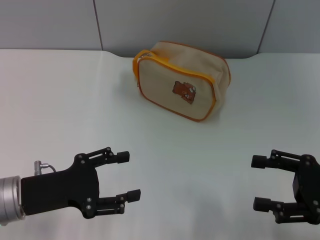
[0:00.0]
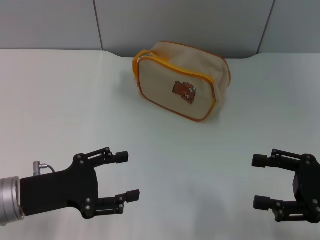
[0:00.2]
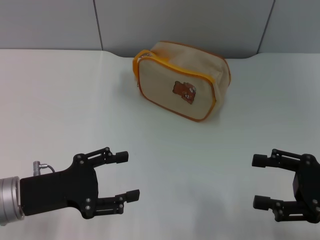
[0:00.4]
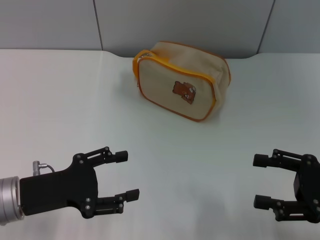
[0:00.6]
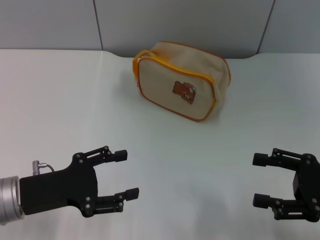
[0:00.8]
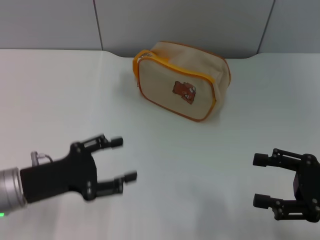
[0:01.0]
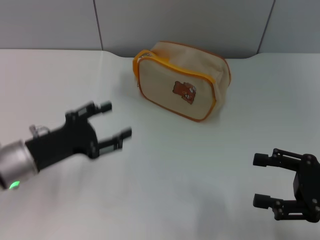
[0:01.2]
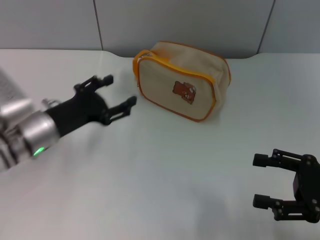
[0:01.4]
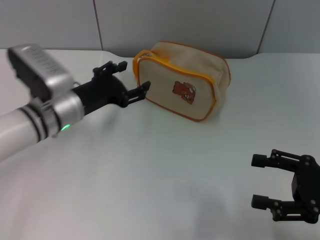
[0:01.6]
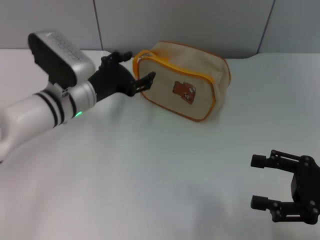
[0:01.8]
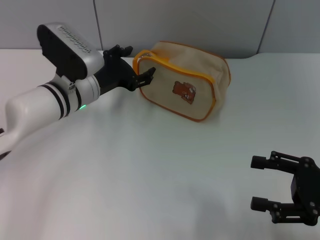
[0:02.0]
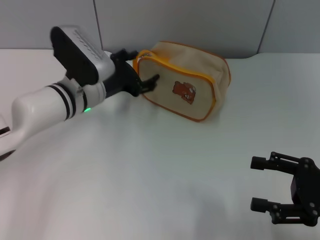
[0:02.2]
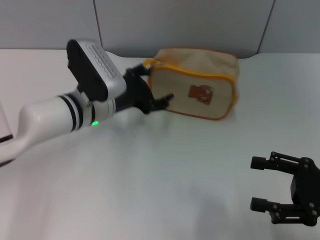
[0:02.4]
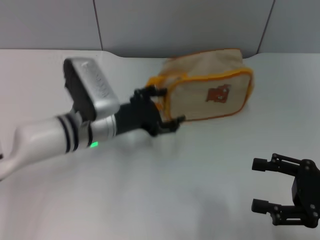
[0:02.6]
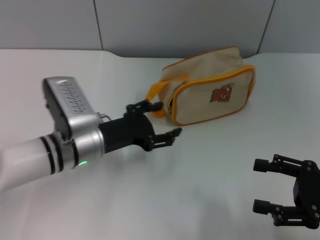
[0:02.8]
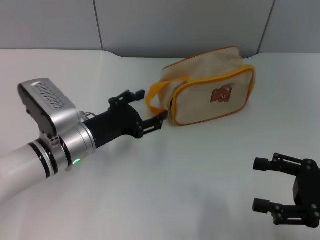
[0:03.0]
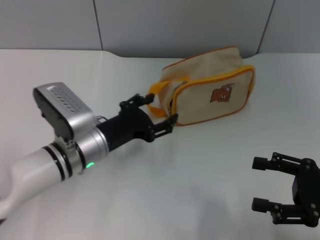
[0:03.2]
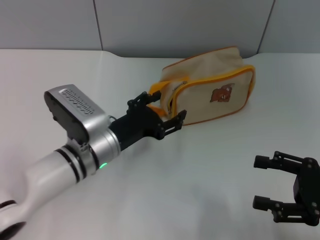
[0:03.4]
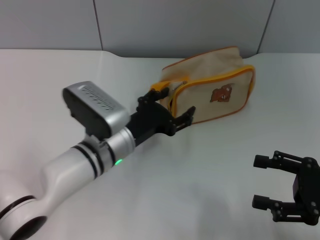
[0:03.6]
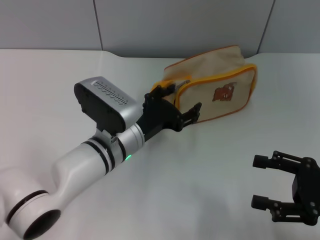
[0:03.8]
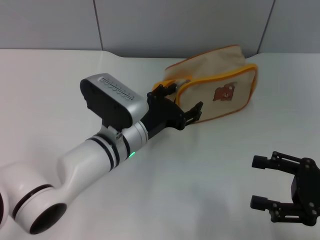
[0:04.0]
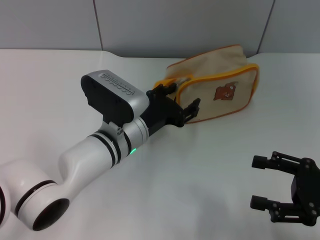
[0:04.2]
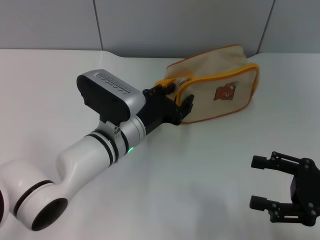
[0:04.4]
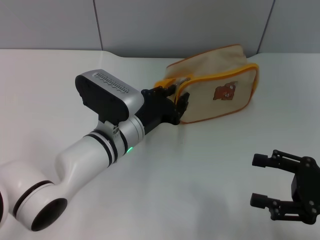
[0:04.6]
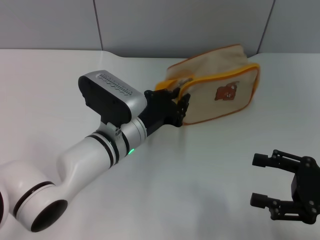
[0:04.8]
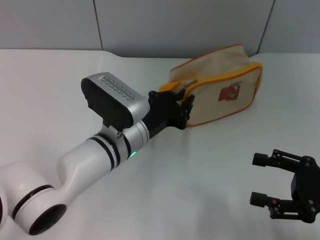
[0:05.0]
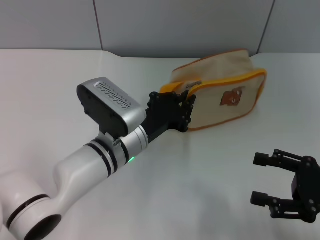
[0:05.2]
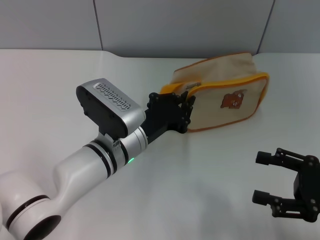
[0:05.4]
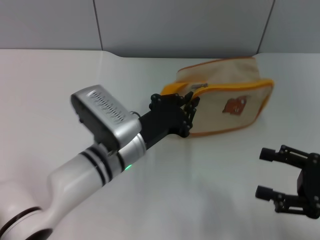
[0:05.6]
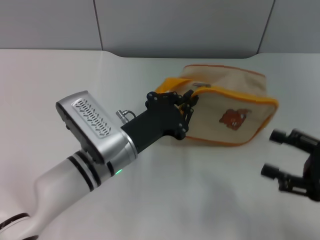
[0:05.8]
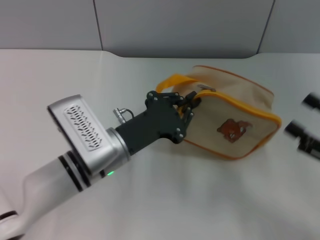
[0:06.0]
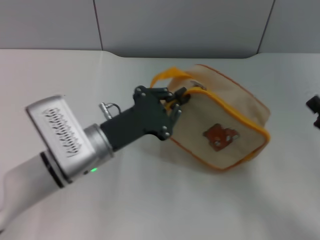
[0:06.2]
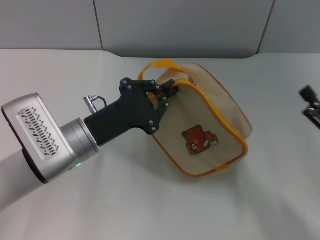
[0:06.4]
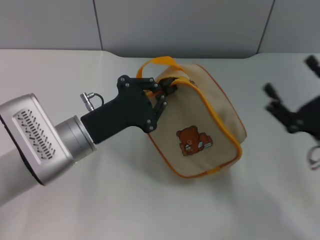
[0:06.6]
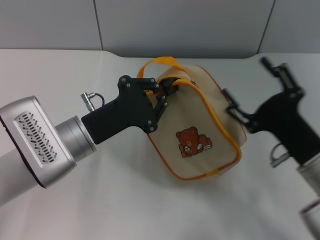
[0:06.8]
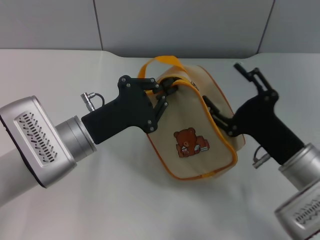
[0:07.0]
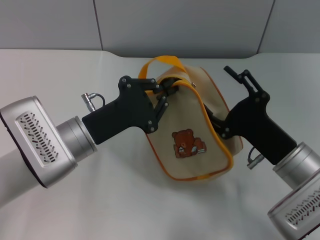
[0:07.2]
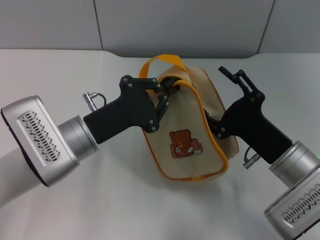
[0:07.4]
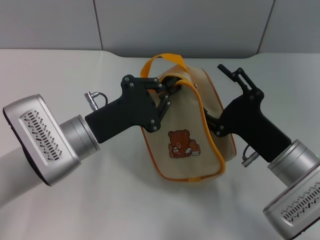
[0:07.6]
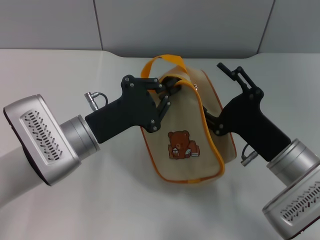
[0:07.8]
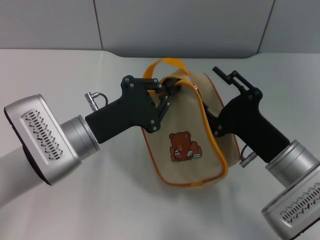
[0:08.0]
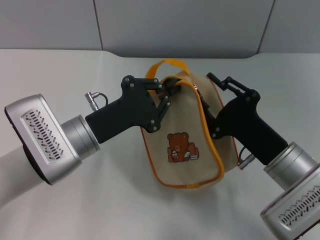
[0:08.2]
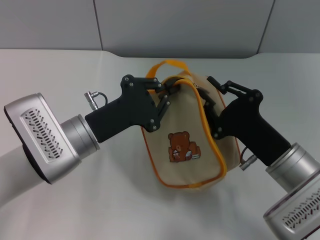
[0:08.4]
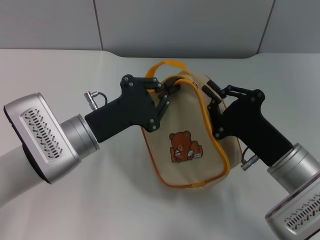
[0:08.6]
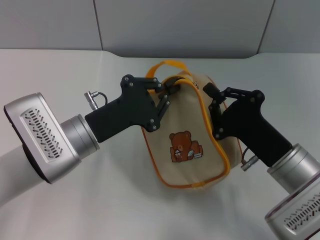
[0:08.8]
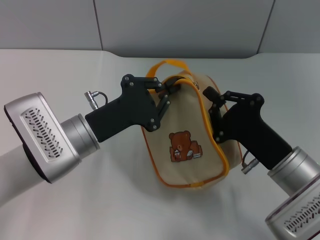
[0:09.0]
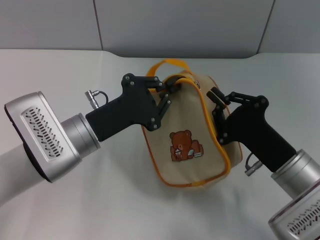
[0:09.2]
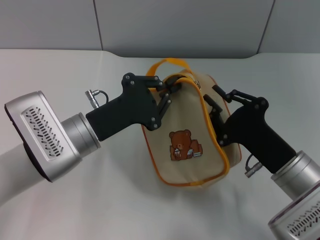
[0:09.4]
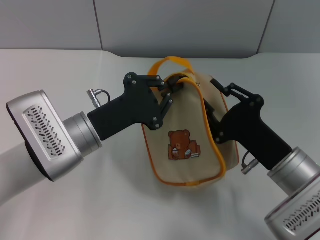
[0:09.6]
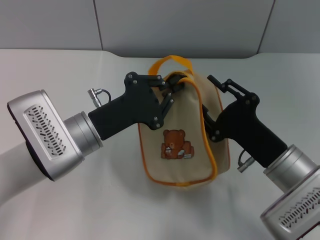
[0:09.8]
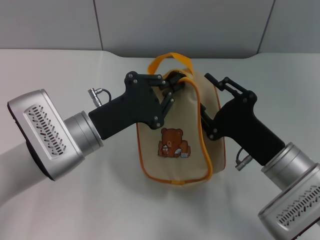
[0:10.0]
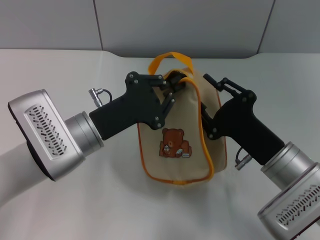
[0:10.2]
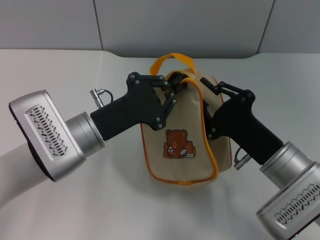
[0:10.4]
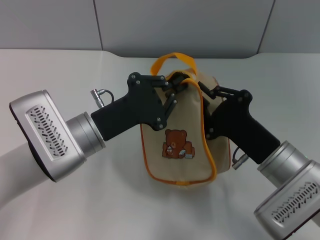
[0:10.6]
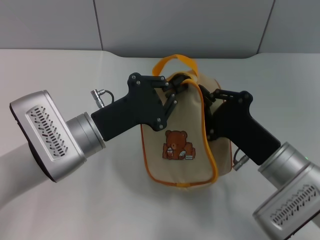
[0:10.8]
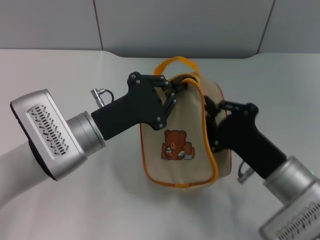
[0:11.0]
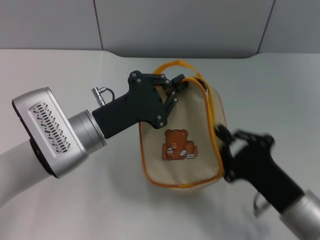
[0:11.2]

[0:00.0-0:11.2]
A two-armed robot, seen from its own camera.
Step, 0:00.0 to 0:06.2: Pick up the bag with left gripper.
0:00.0 to 0:01.6: The left gripper moves forward and to the right, roughly 15 cm.
0:01.6 to 0:03.2: The left gripper goes about 5 cm backward.
0:03.2 to 0:04.8: The left gripper heads to the right, covering about 5 cm, and closes up.
0:04.8 to 0:06.4: The left gripper goes some 5 cm to the left.
0:06.4 to 0:08.0: The right gripper is displaced to the left by approximately 10 cm.
0:08.0 to 0:09.6: The right gripper closes up.
0:09.6 to 0:11.2: The right gripper shifts some 5 cm backward.

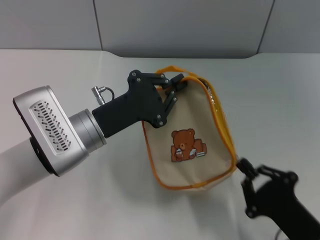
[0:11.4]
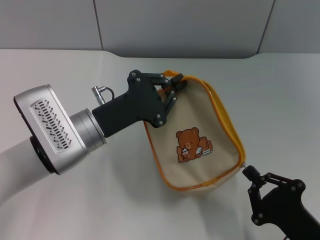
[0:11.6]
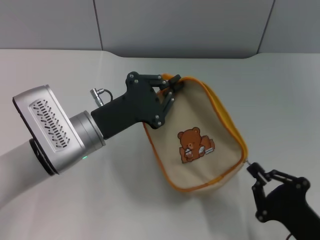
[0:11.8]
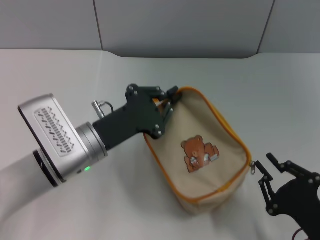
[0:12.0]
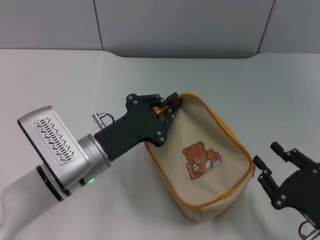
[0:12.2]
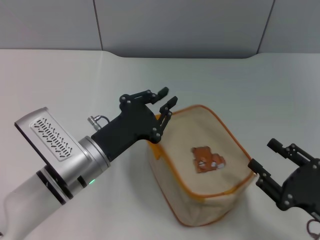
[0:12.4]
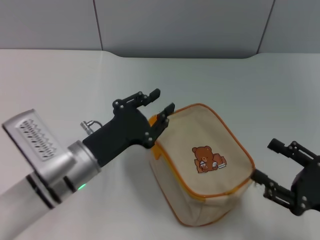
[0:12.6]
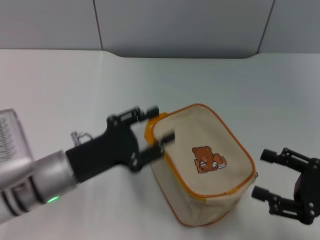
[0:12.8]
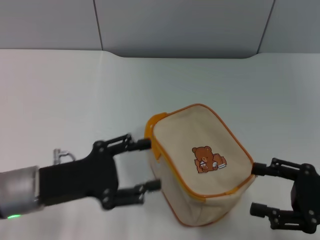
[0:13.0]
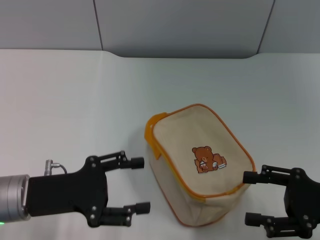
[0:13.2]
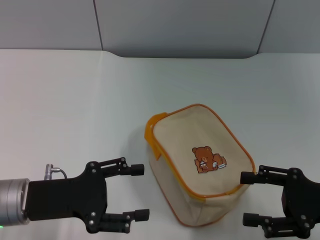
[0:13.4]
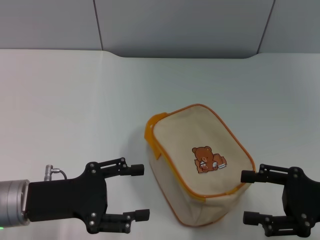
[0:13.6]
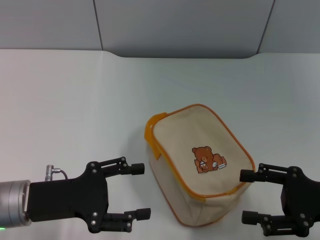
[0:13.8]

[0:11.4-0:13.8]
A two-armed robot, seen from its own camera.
0:11.4 to 0:12.6: The right gripper moves to the right, roughly 10 cm, and opens its fingers. The left gripper changes place by about 5 cm.
0:12.6 to 0:13.8: The right gripper moves some 5 cm; the left gripper heads to the left, covering some 10 cm, and opens.

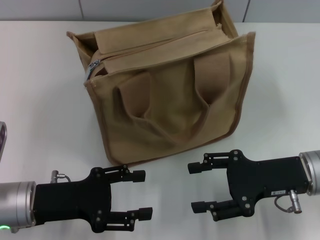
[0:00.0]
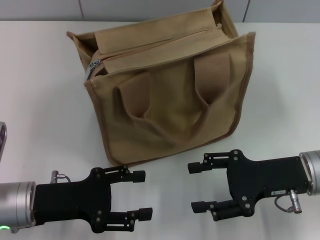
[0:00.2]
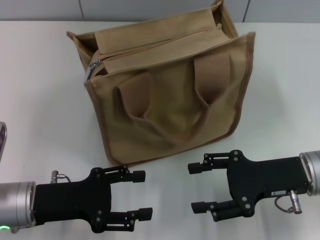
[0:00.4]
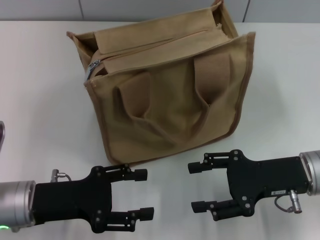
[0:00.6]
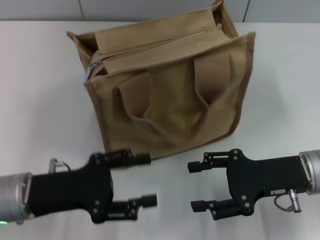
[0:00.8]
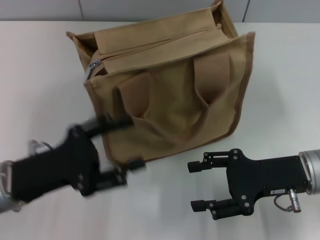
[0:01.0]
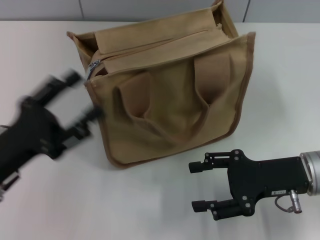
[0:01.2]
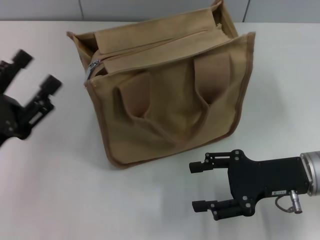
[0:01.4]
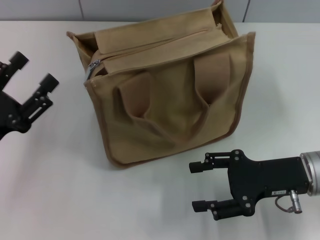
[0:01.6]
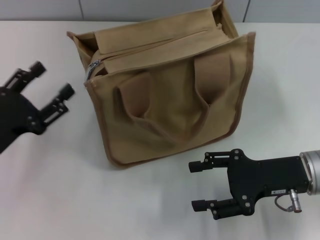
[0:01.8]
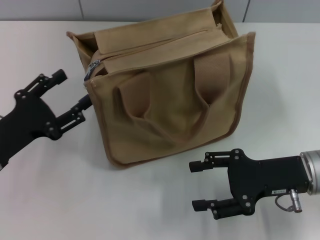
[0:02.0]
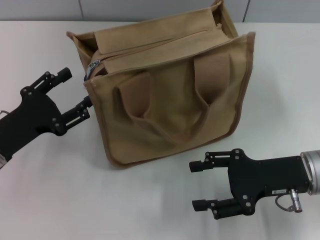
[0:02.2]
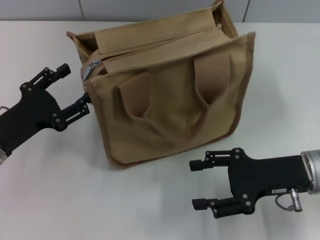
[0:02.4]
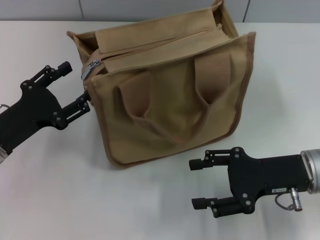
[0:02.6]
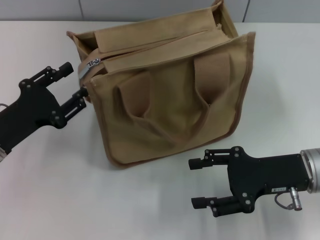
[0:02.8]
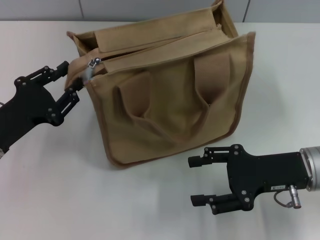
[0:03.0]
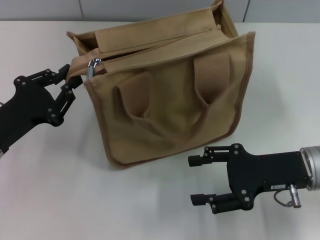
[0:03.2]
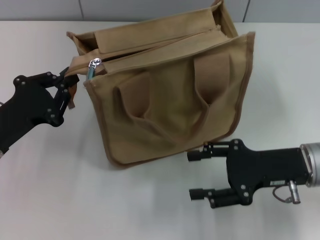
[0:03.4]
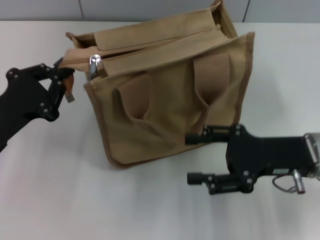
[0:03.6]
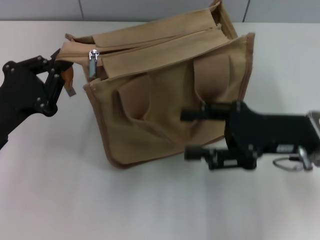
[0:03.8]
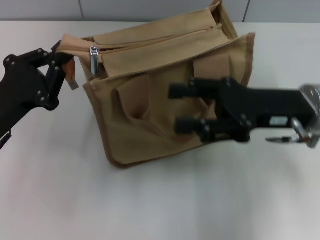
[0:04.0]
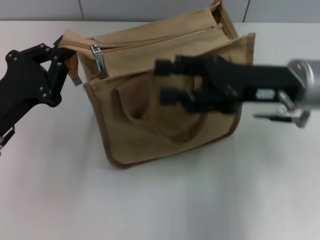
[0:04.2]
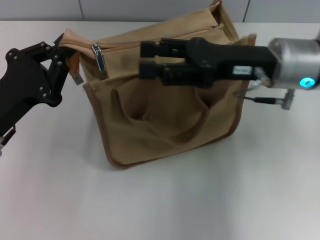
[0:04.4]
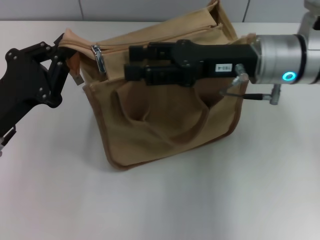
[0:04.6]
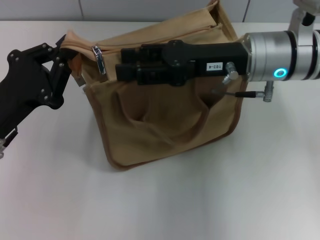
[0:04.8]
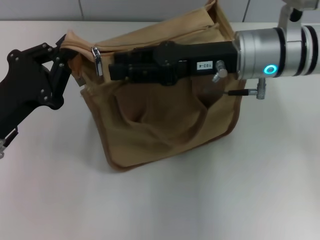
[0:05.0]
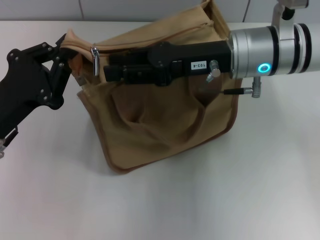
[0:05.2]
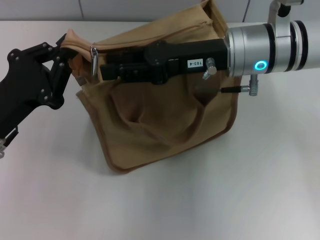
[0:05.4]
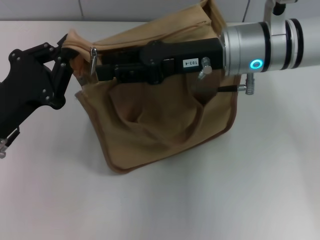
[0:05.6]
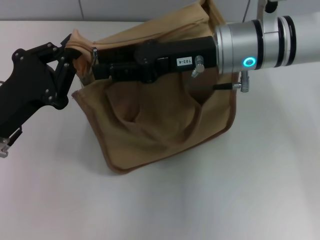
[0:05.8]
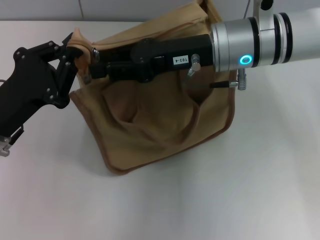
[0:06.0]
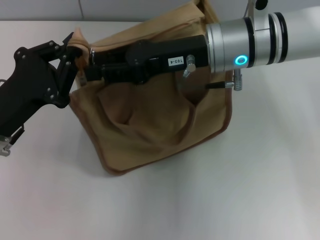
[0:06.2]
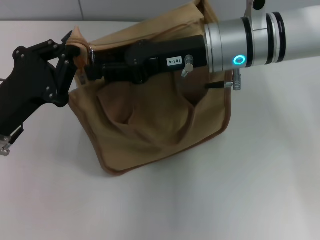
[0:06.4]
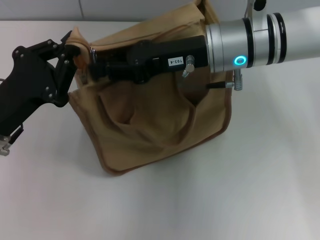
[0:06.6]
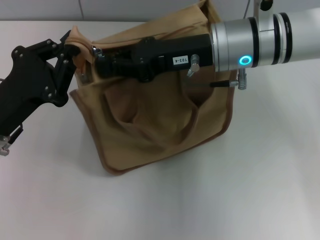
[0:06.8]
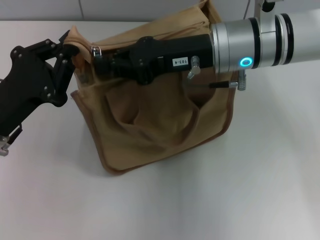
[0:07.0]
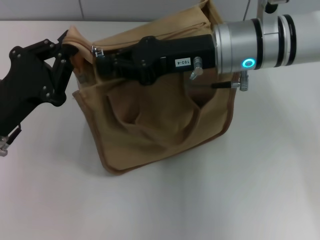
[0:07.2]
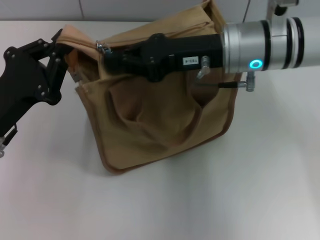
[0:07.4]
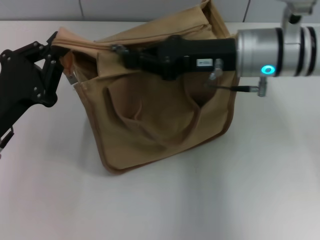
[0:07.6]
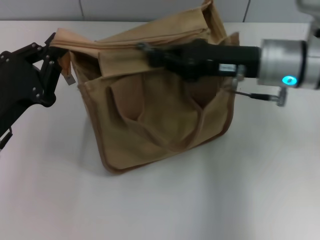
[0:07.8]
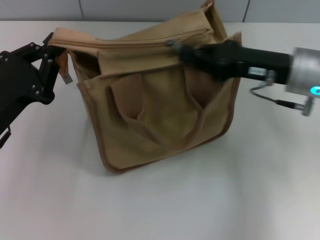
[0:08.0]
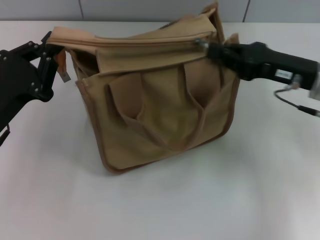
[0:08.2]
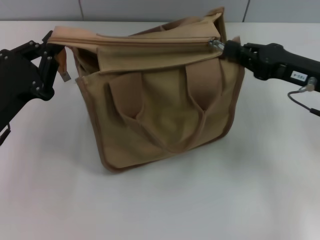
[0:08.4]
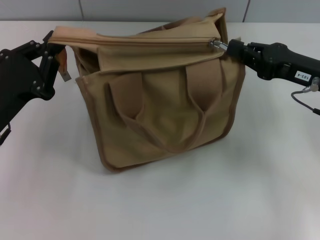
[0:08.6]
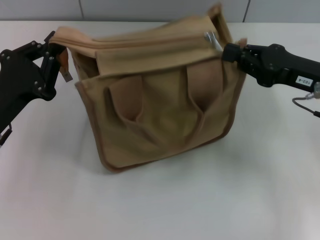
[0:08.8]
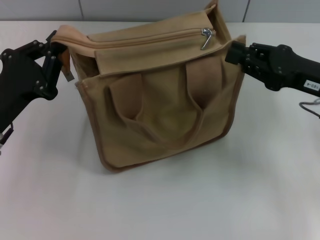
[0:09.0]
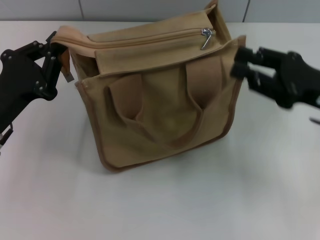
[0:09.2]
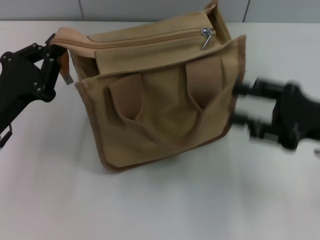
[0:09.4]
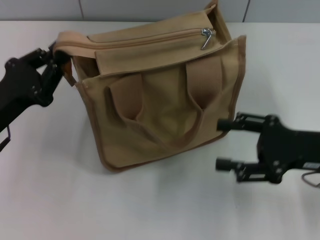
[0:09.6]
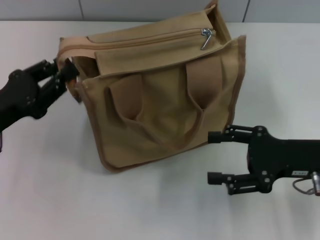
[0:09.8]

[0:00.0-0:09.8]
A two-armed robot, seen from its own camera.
Step, 0:00.0 to 0:08.6: Pull up the zipper with your right hand.
0:00.0 to 0:01.4: The left gripper ends up some 5 cm from where it was.
0:01.4 to 0:02.8: The left gripper travels forward by roughly 5 cm.
0:02.8 to 0:04.2: The right gripper goes about 10 cm upward and forward; the left gripper closes up.
0:04.2 to 0:05.6: The right gripper moves to the left, roughly 5 cm.
0:05.6 to 0:07.0: The right gripper closes up.
0:07.0 to 0:08.4: The right gripper moves to the right, roughly 15 cm.
0:08.4 to 0:09.8: The right gripper goes roughly 5 cm backward, and opens up.
